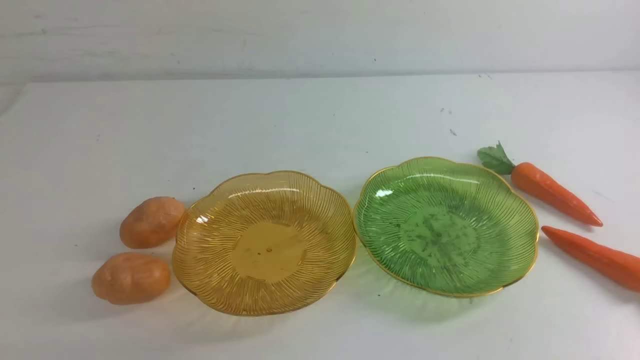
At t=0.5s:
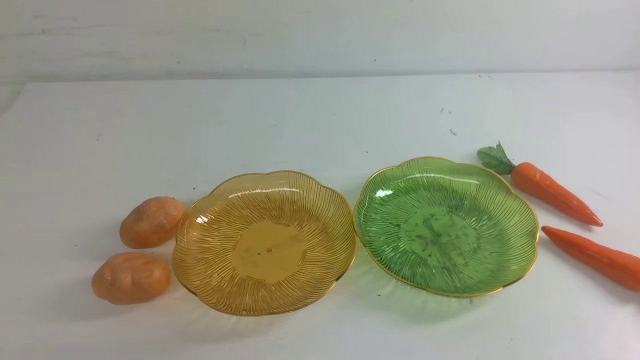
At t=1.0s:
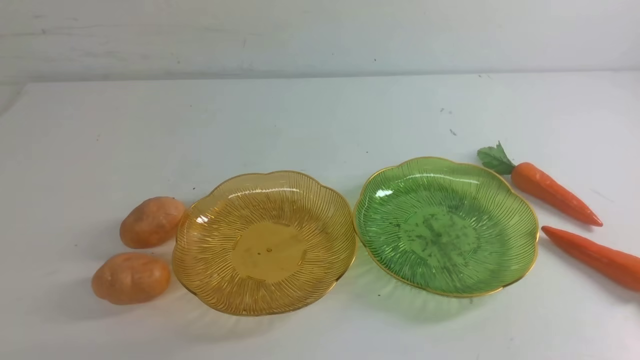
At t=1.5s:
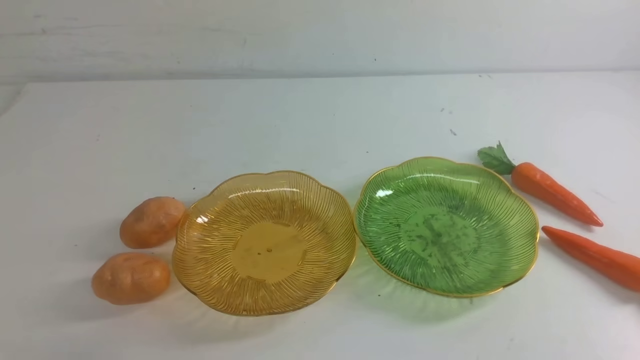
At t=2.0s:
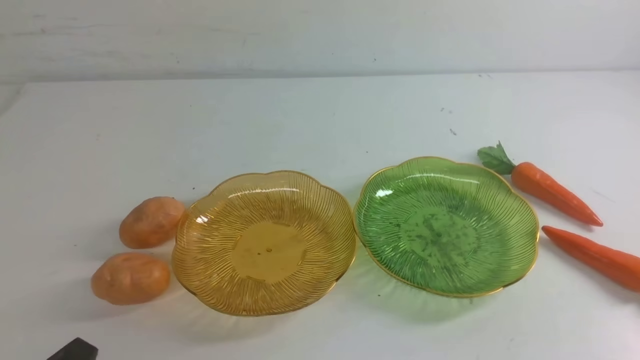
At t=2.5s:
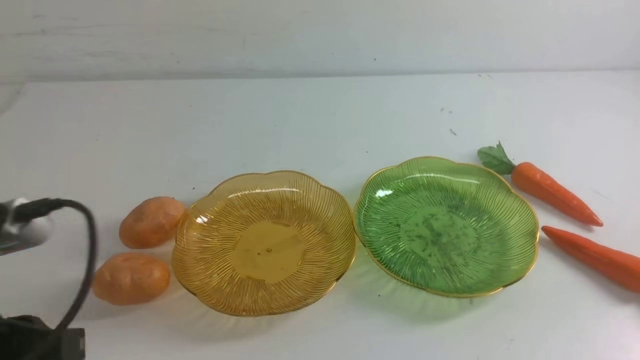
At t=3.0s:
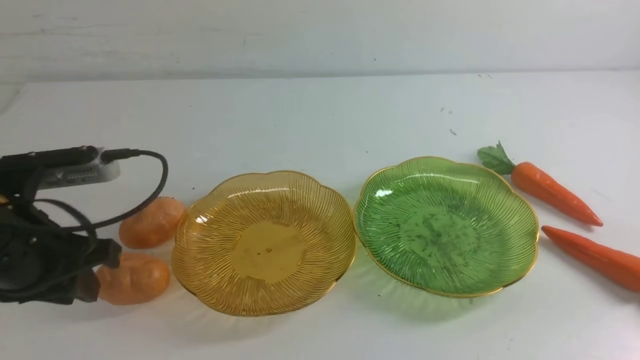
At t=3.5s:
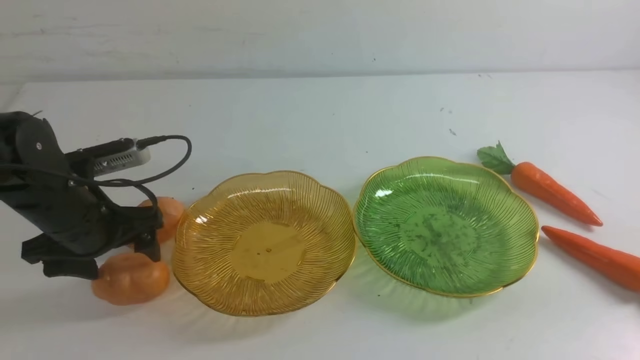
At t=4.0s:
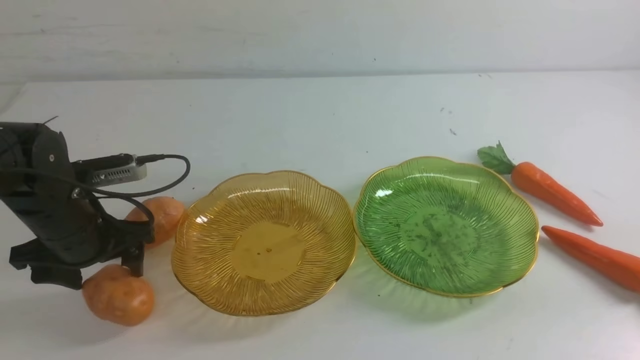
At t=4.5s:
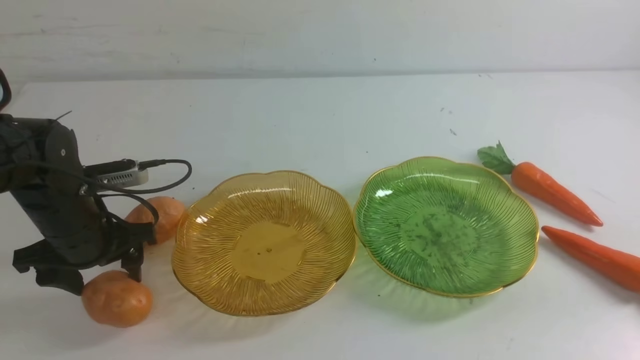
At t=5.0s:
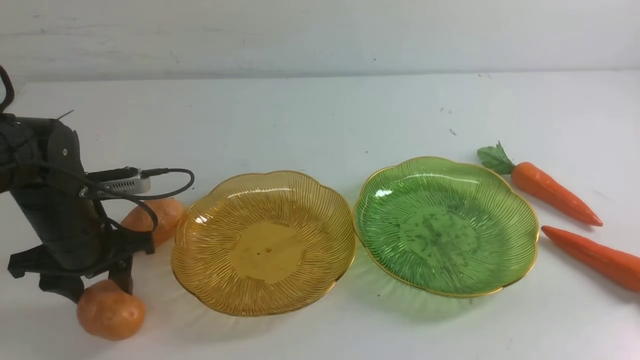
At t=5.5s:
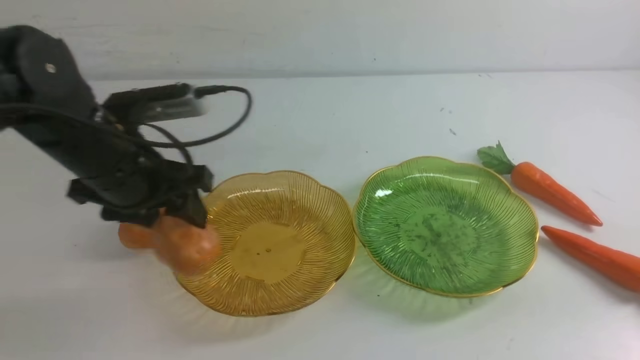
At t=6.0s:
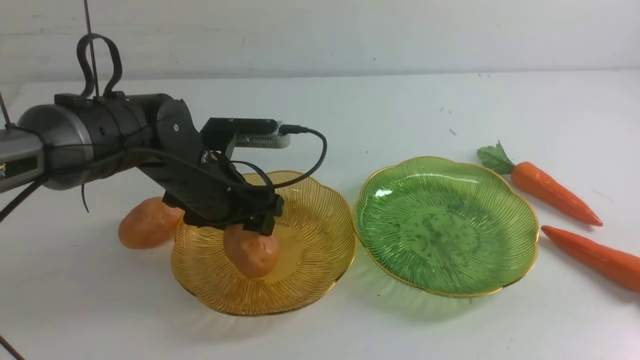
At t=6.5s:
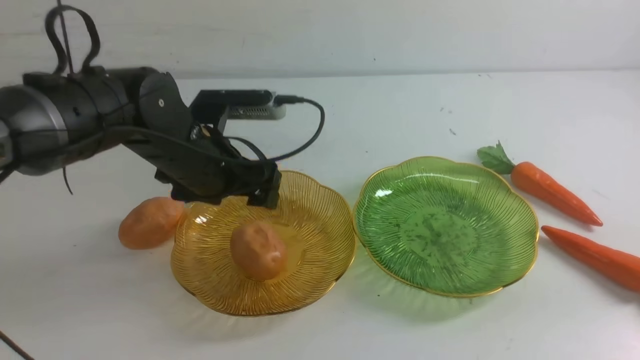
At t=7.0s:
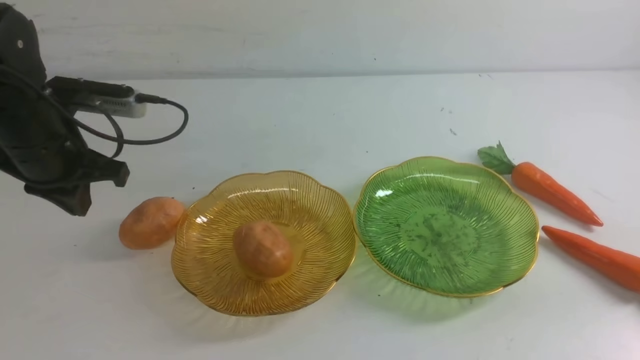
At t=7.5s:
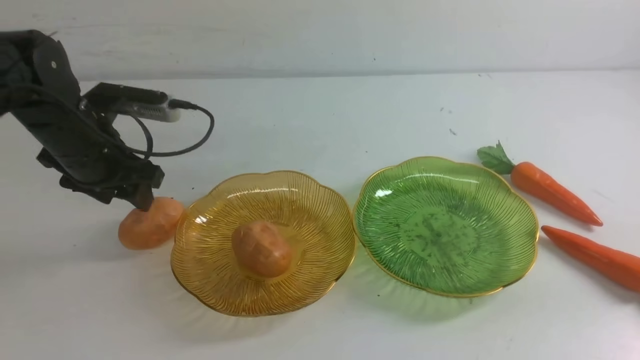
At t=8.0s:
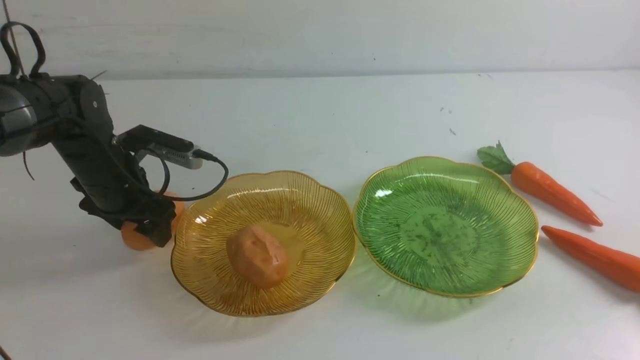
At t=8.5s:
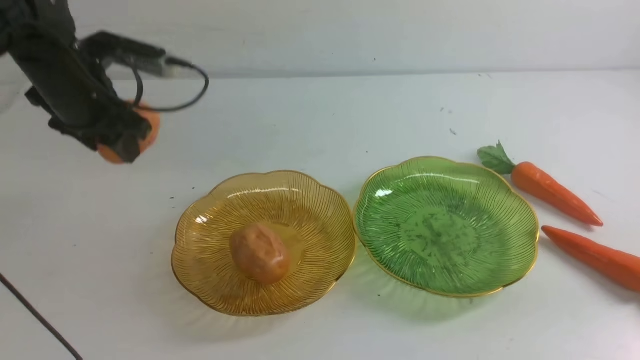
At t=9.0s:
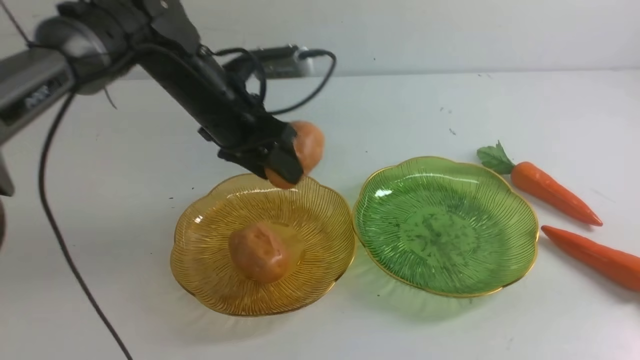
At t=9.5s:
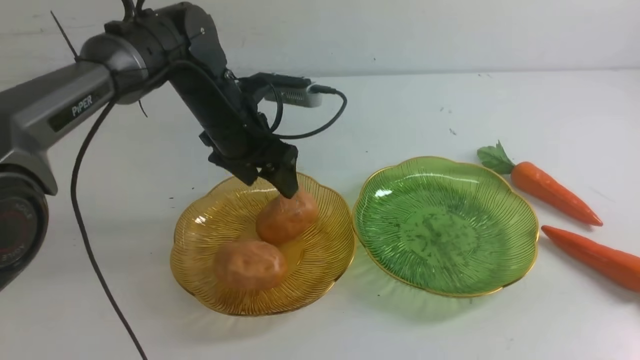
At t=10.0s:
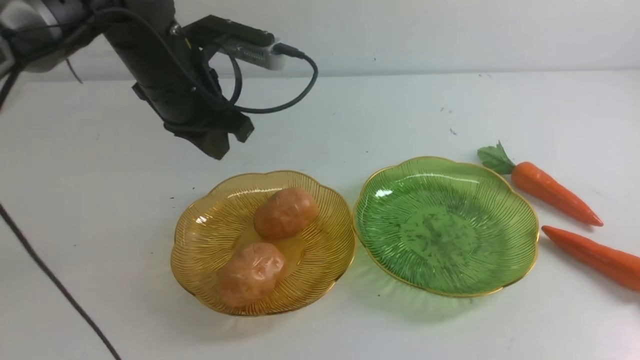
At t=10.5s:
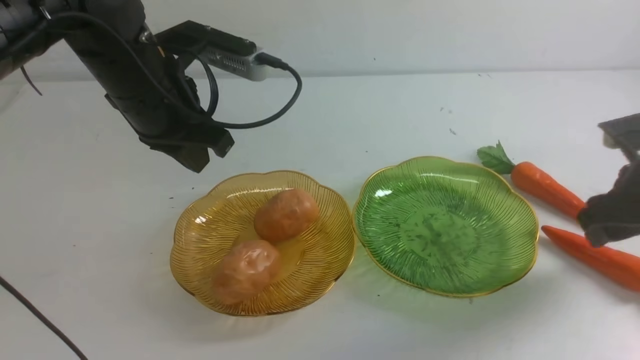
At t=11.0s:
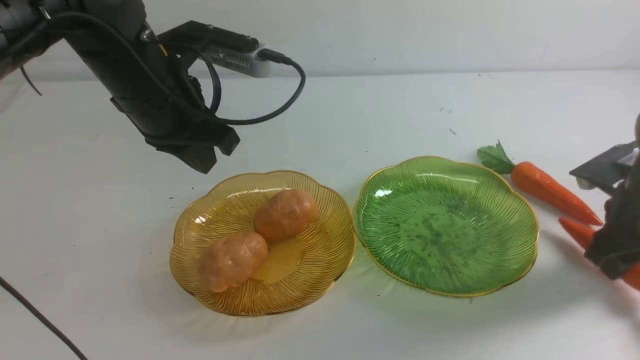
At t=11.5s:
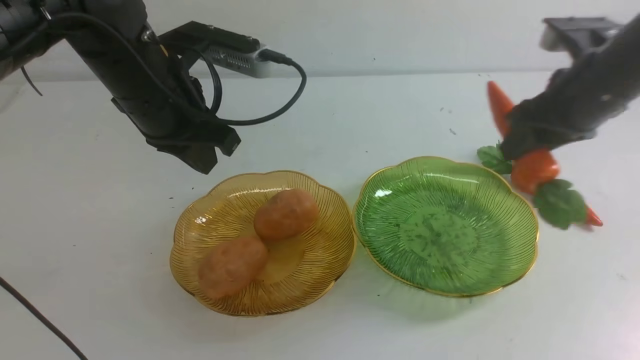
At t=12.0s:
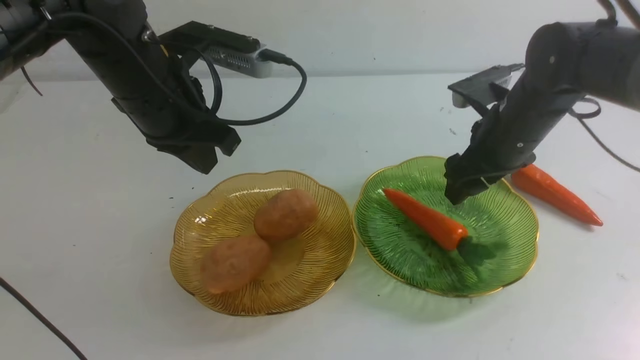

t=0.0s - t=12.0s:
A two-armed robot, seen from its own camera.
Step, t=0.0s - t=9.0s: Grab a potato with your left arm and put it on the left plate.
Step, t=9.5s - t=11.5s: use the right arm to grab a carrot and put it into the right plate.
t=2.0s - t=4.0s: The left gripper goes some 25 cm forward, and opens its fingers.
t=4.0s - t=6.0s: The left gripper shifts some 10 cm upward, and closes up.
t=6.0s - t=8.0s: The left gripper is displaced forward by some 5 cm, moves approximately 10 cm downward and comes back, and opens, then closes once more.
t=8.0s - t=10.0s: The right gripper shifts about 25 cm forward and downward, and opens up. Meanwhile the left gripper travels backward and to the right by approximately 10 cm, and closes.
t=10.0s - t=12.0s: The right gripper goes some 10 cm forward, and reaches roughly 15 cm to the left, then returns.

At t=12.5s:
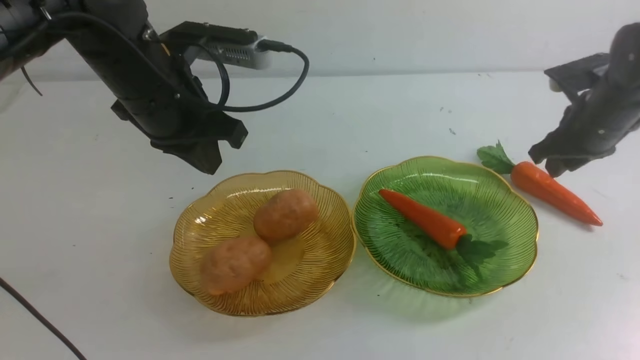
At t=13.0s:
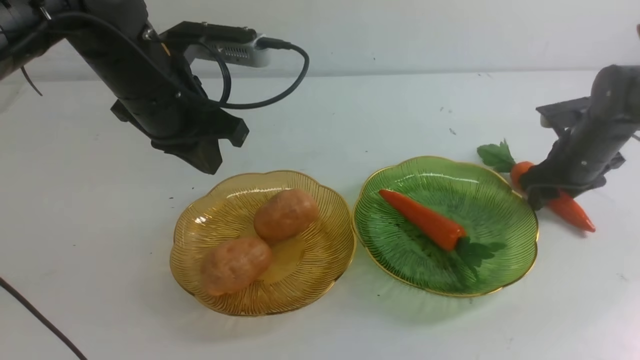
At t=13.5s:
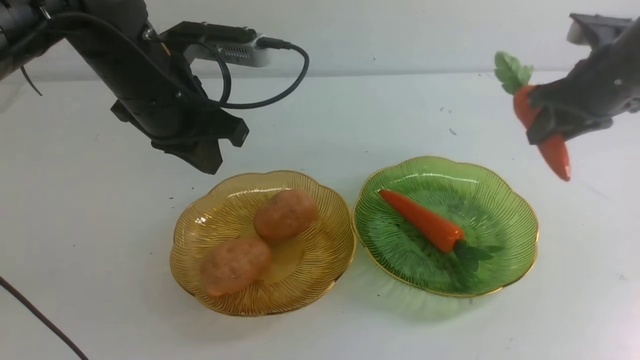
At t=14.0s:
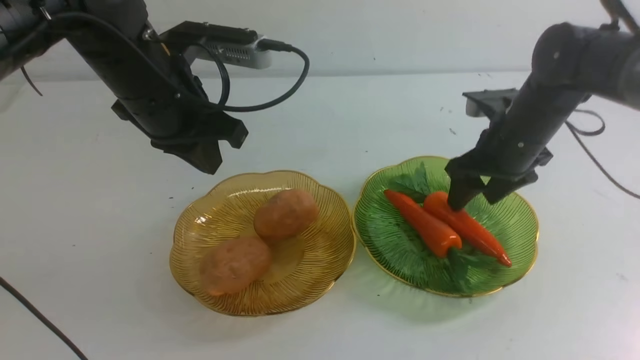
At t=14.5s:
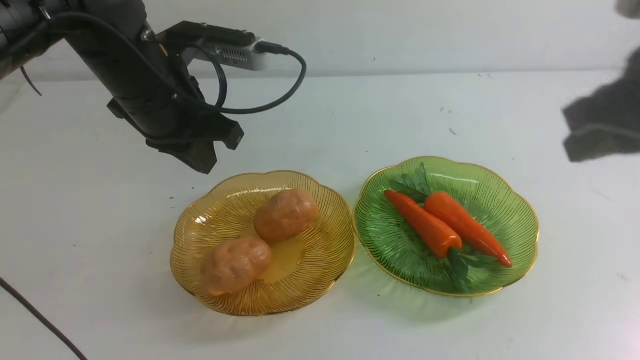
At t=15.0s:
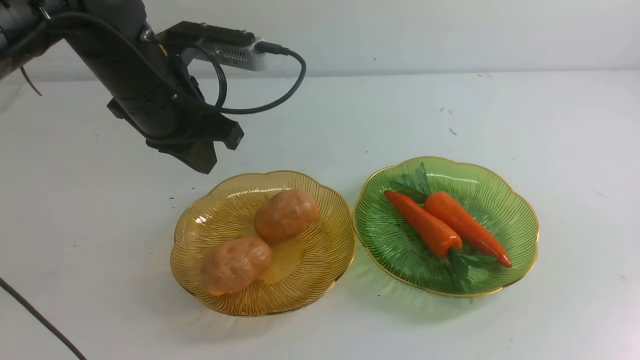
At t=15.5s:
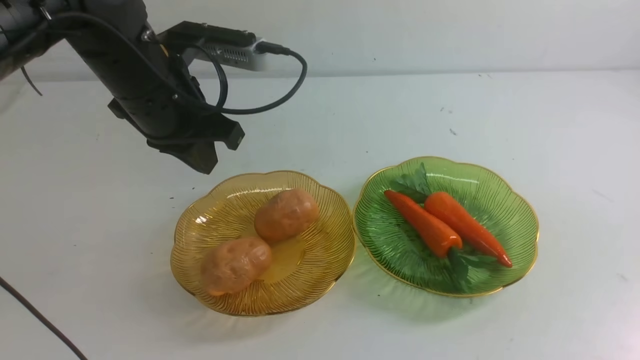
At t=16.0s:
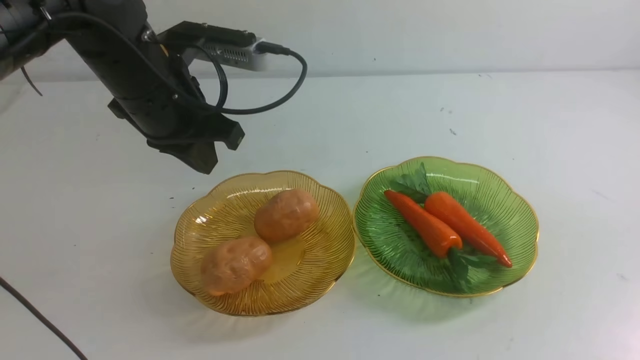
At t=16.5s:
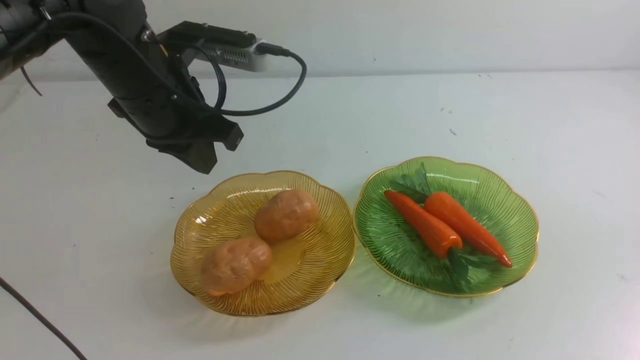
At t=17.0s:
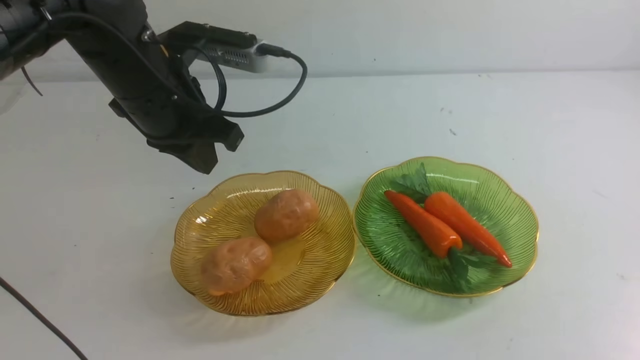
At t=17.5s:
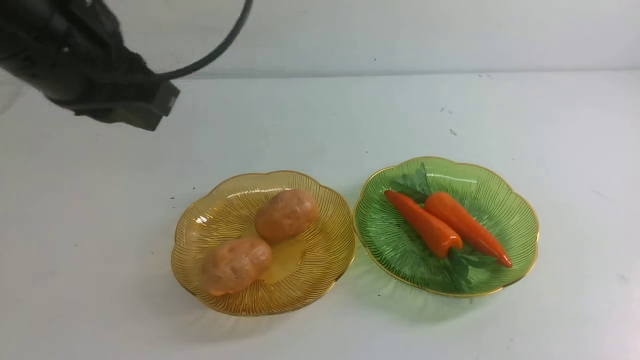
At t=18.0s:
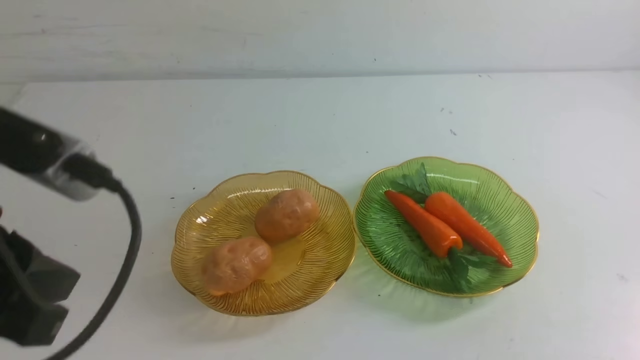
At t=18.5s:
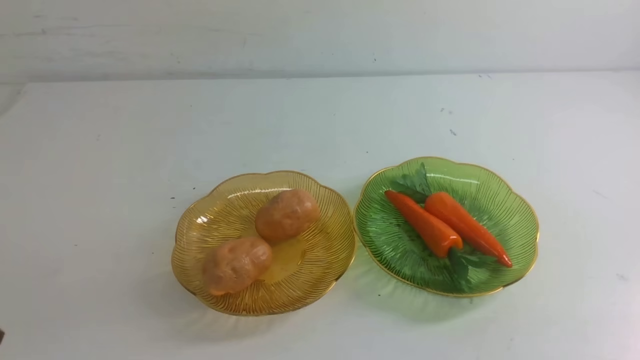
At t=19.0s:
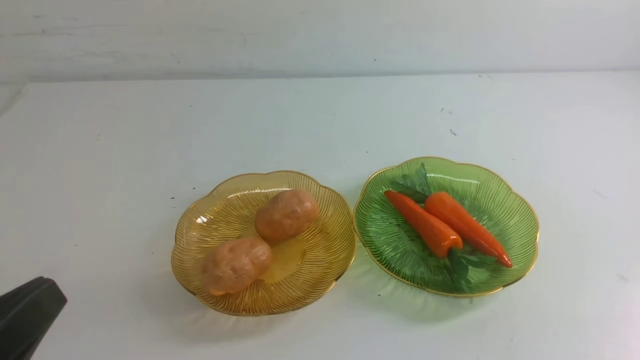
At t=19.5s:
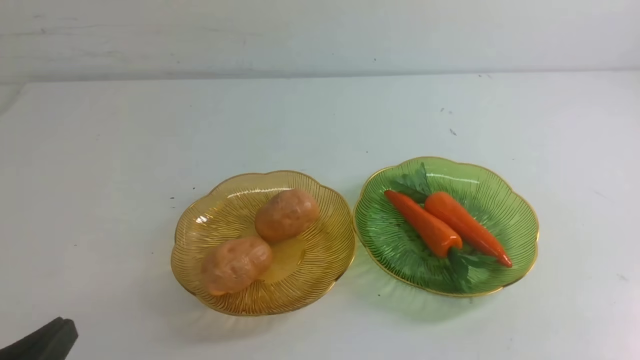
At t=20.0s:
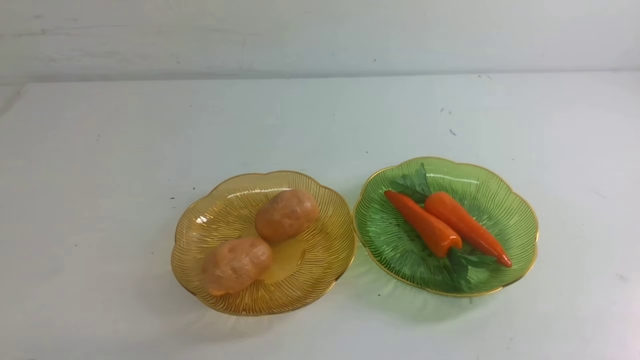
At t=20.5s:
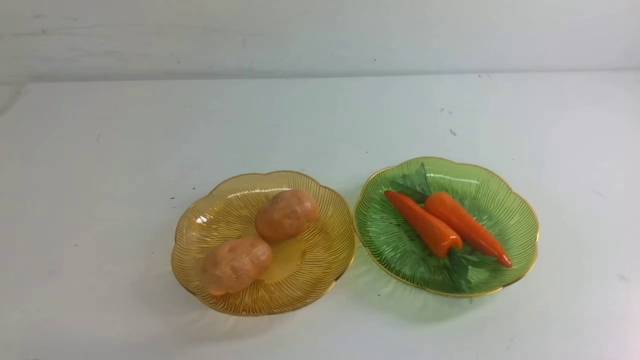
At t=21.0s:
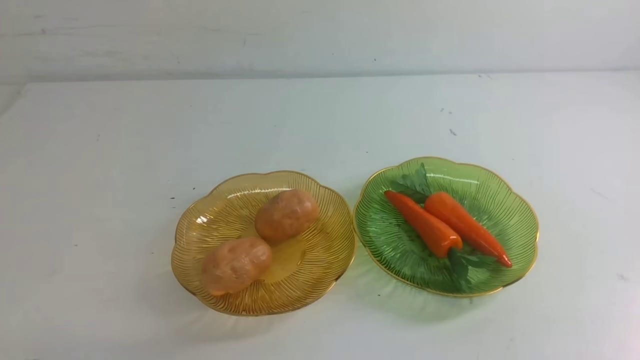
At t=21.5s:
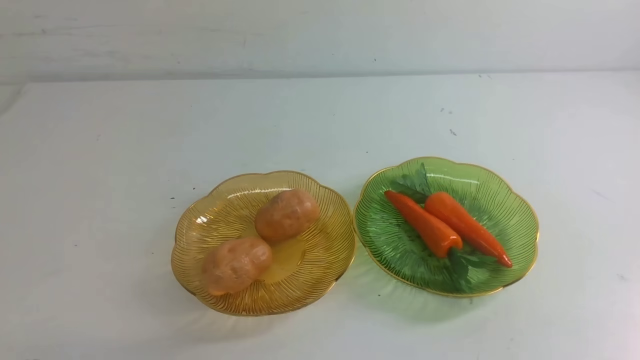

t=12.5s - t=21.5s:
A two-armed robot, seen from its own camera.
Step, t=12.5s - t=13.5s: use the right arm to grab a carrot and put it into the right plate.
t=12.5s - t=14.5s: The right gripper is displaced backward and upward by approximately 40 cm, and closes its fingers.
t=14.5s - t=17.0s: The right gripper is displaced downward by about 15 cm.
t=17.0s - t=19.5s: The left gripper moves backward and downward, some 30 cm.
t=19.5s - t=21.5s: The grippers stay close to where they were, moving slightly.
